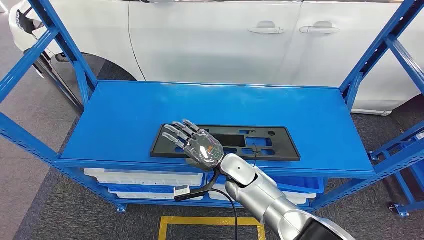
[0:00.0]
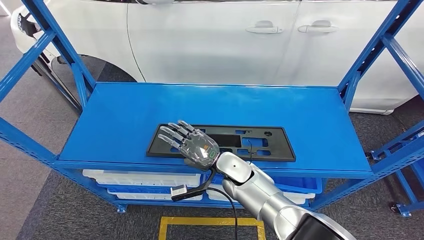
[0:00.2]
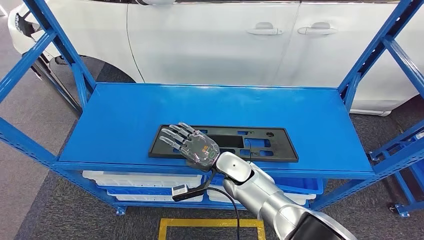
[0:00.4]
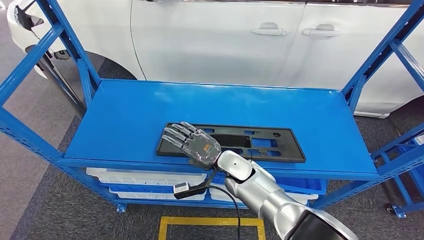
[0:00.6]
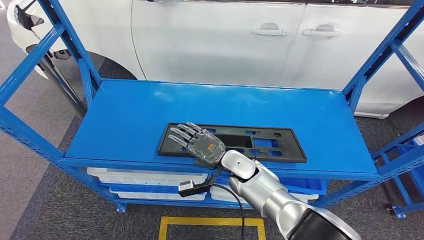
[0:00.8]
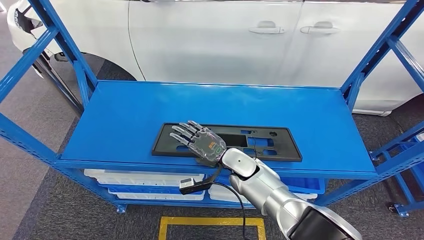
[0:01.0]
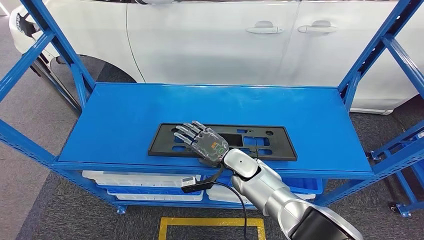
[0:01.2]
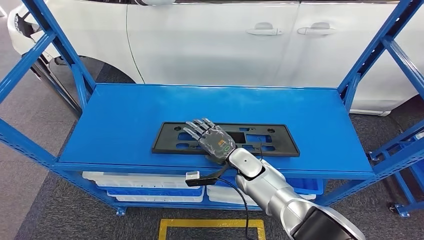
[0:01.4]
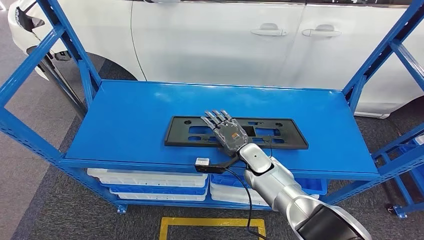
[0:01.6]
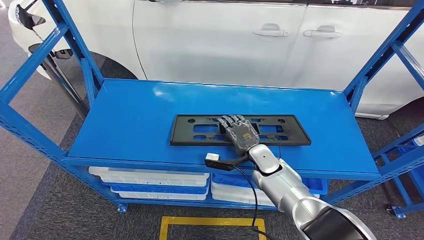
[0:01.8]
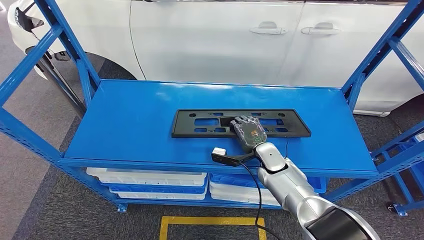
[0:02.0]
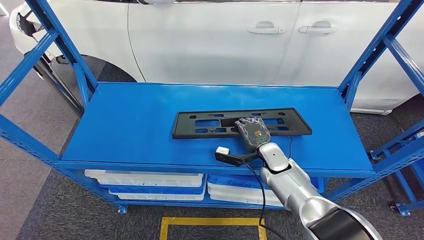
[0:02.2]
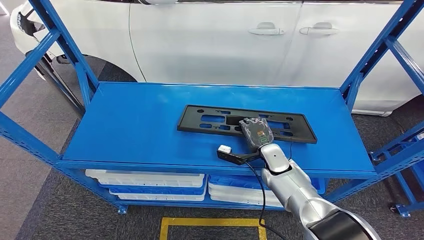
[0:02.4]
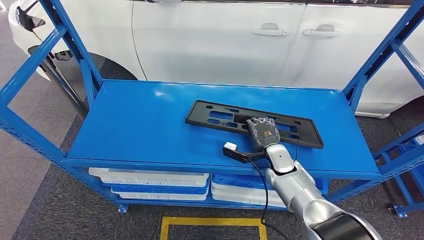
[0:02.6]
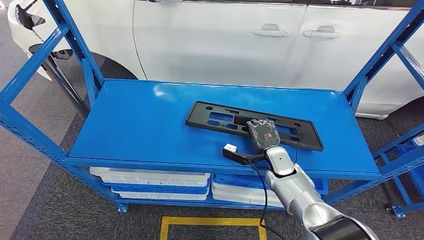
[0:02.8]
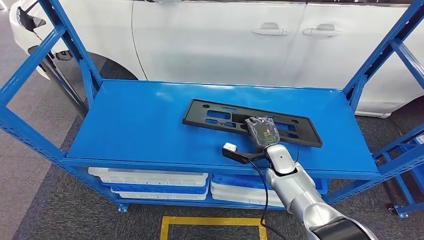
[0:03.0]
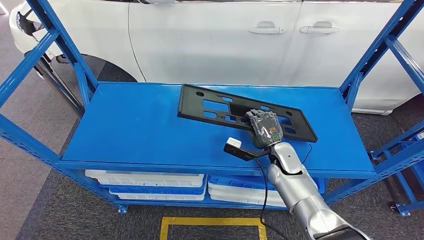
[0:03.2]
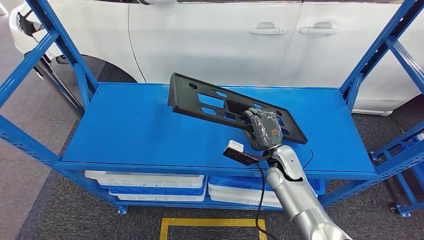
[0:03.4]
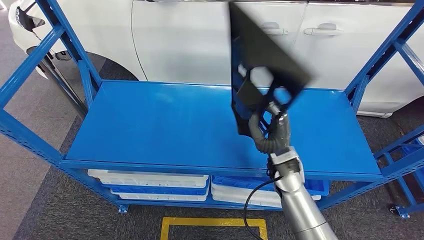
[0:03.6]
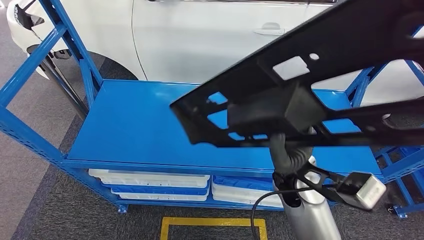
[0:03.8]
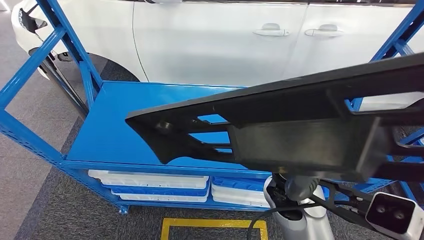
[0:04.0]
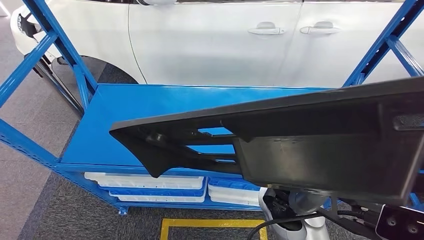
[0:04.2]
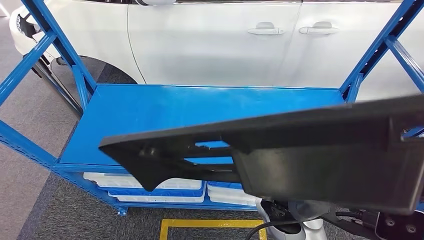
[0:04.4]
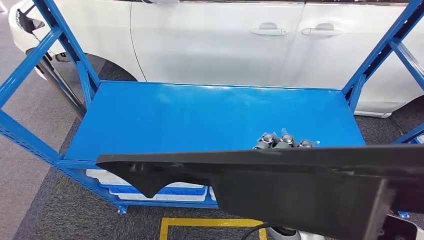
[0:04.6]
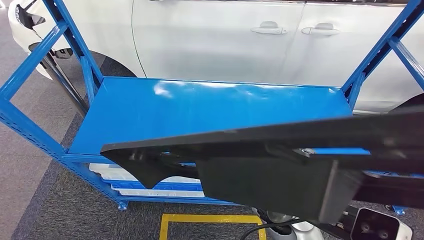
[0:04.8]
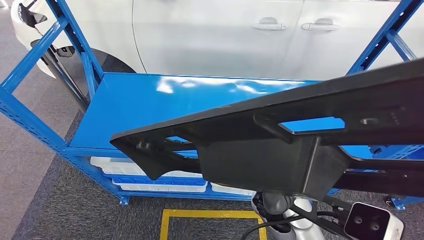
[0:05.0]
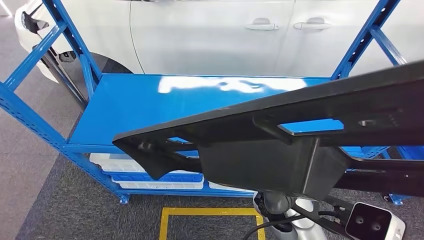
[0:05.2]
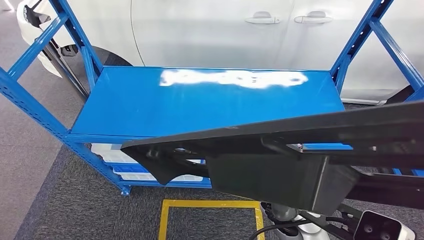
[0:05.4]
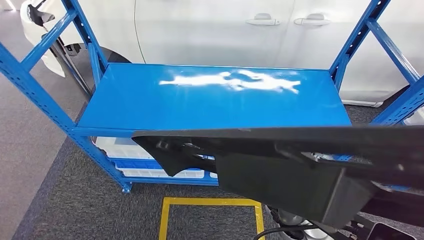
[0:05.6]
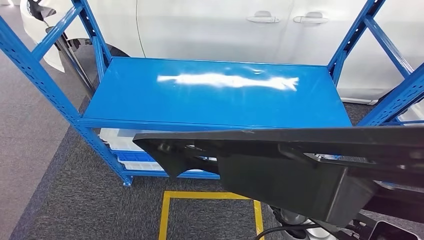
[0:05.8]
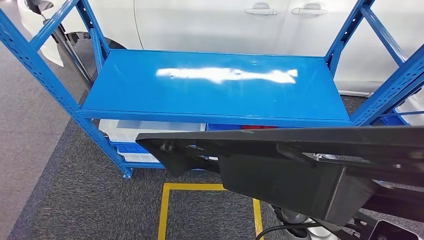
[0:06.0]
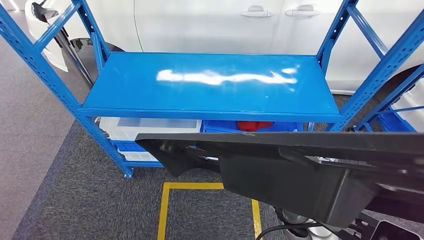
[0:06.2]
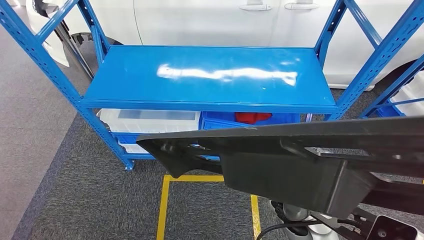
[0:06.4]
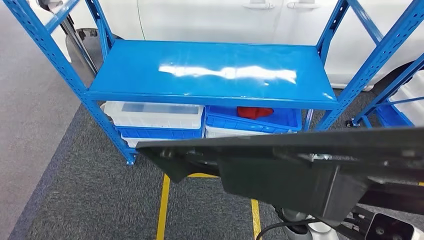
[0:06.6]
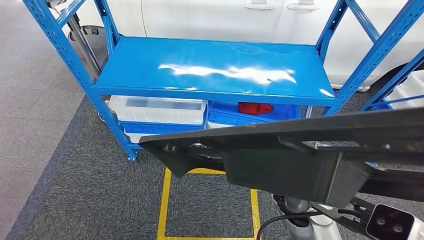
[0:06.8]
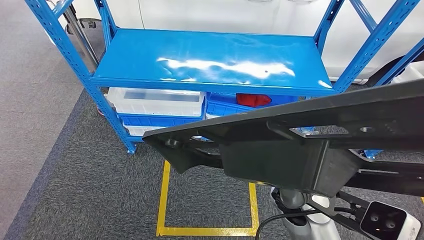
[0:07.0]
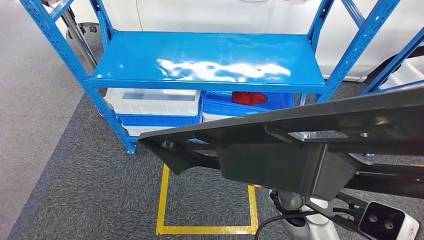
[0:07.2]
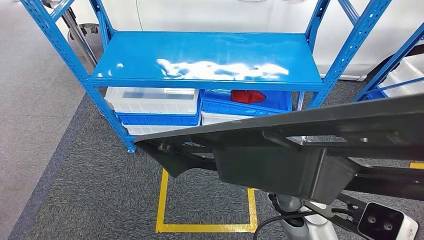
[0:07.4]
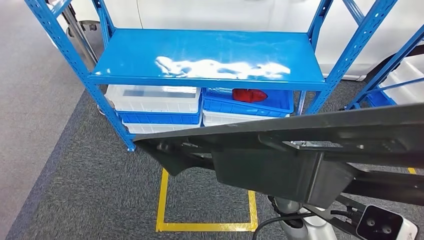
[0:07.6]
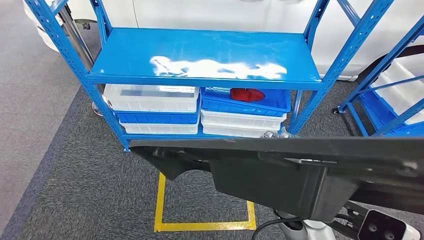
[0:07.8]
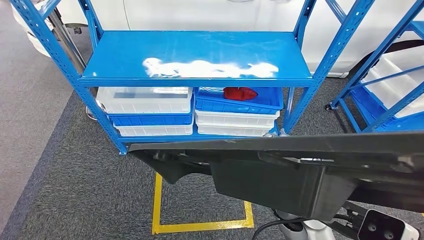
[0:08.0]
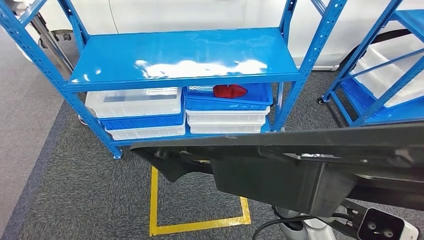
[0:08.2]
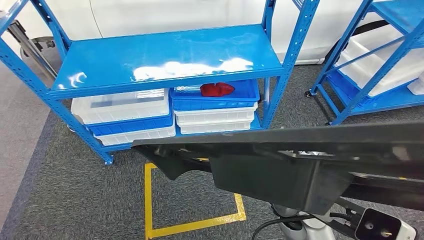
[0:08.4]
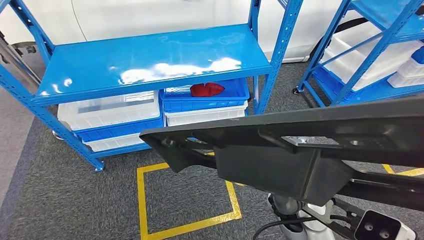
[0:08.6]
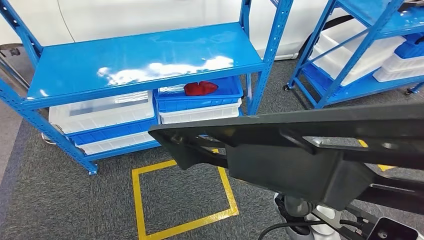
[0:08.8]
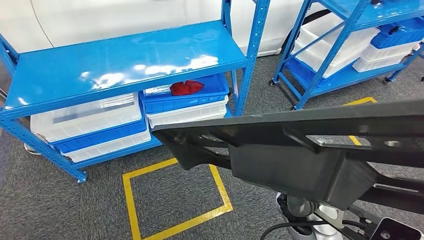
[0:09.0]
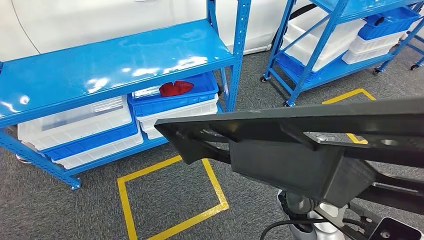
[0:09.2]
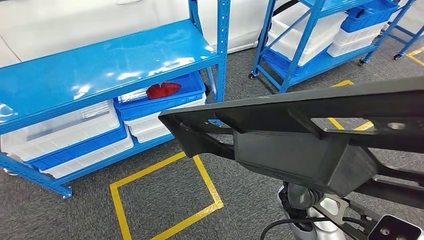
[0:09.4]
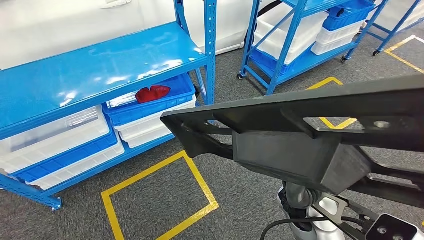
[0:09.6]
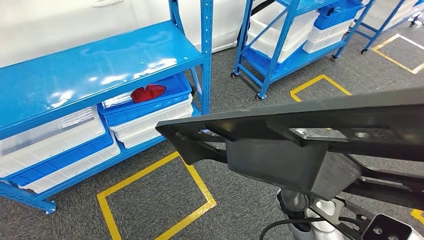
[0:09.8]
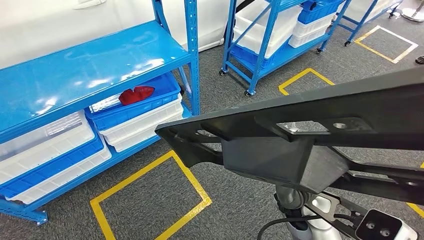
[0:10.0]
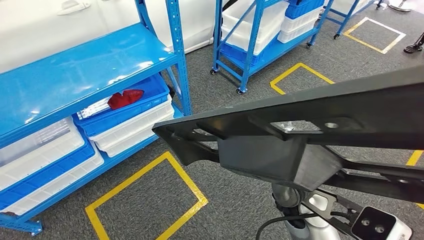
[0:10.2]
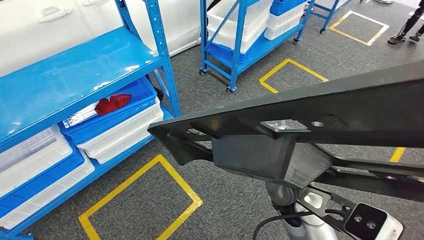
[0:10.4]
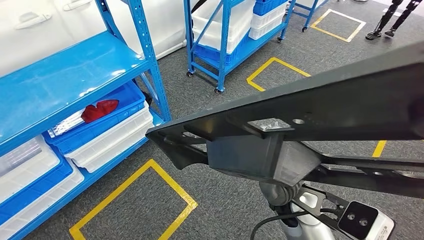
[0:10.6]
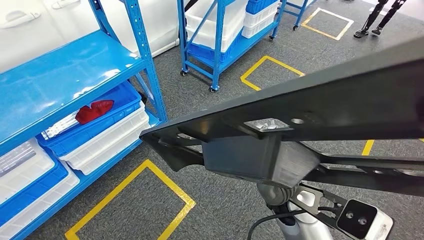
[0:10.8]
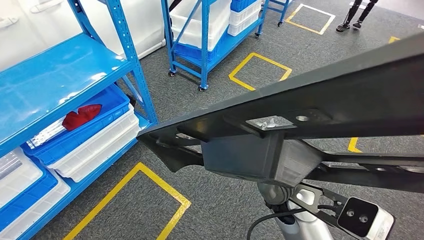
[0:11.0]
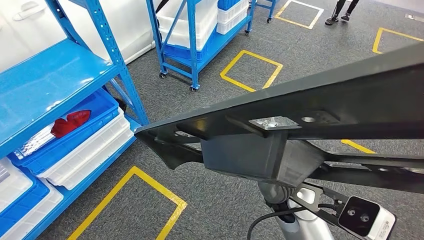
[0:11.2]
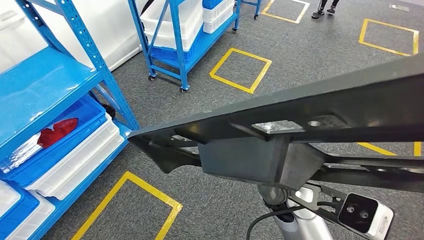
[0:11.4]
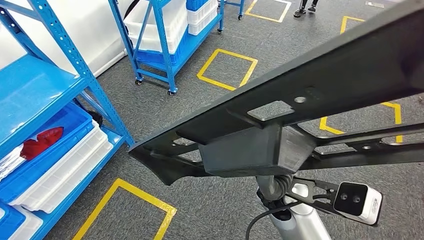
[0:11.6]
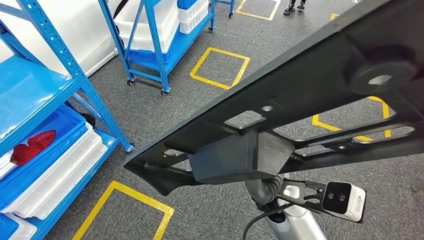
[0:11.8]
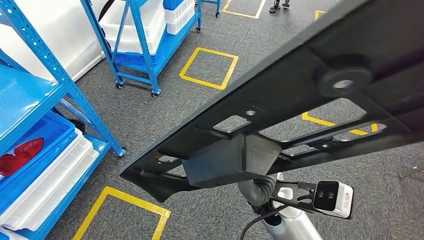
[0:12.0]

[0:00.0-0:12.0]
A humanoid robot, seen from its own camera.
Step, 0:00.0 to 0:04.2: Pick up the large material from the shelf.
0:01.6 to 0:03.0: The right hand shifts about 10 cm to the right.

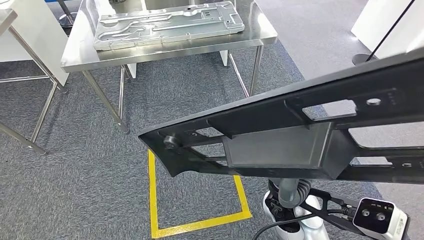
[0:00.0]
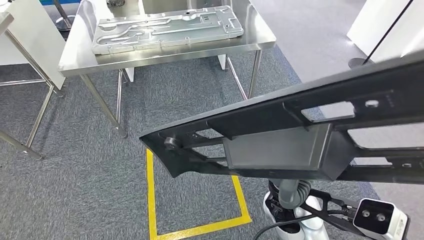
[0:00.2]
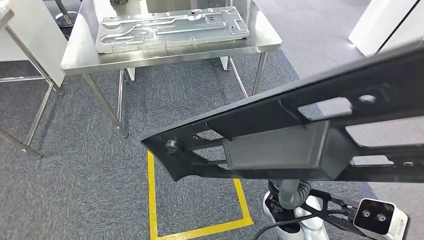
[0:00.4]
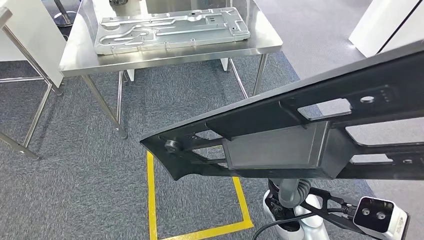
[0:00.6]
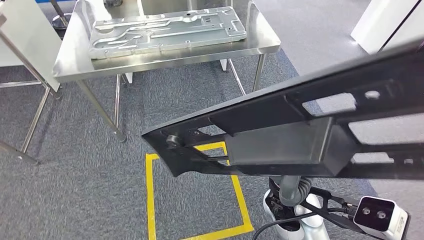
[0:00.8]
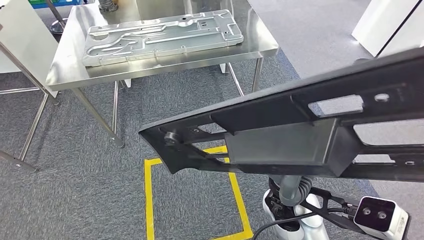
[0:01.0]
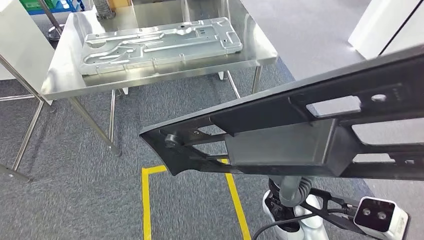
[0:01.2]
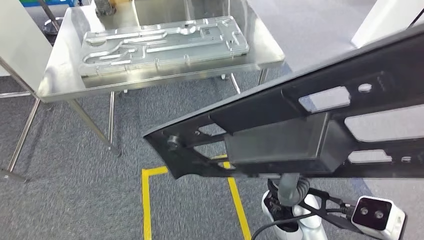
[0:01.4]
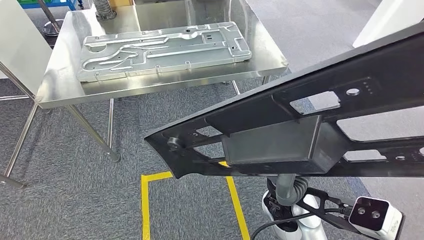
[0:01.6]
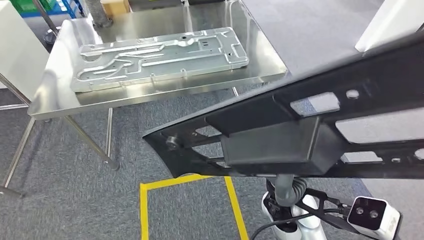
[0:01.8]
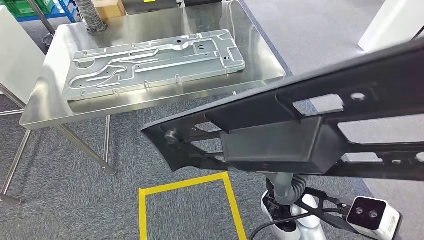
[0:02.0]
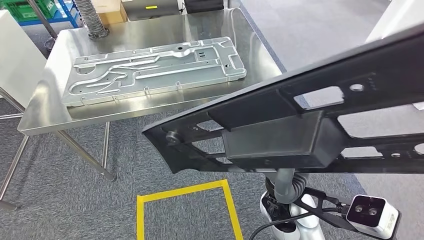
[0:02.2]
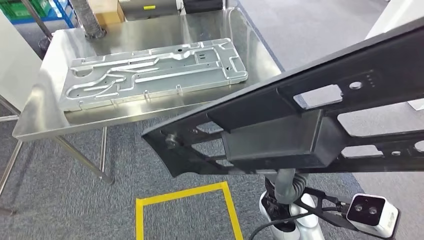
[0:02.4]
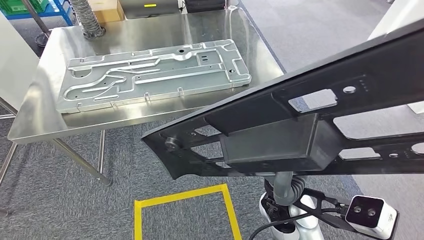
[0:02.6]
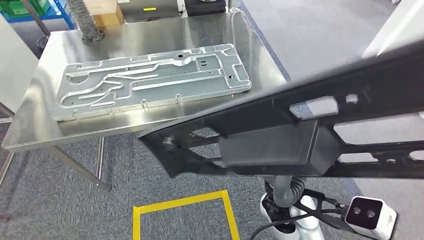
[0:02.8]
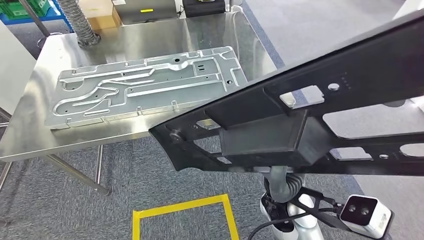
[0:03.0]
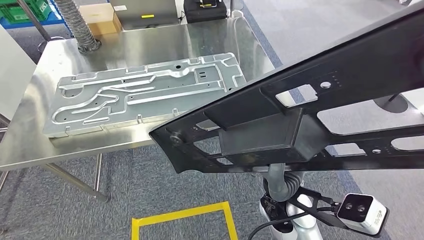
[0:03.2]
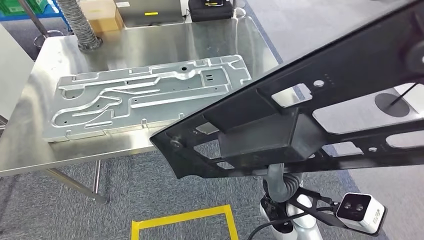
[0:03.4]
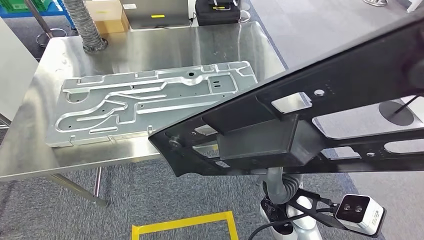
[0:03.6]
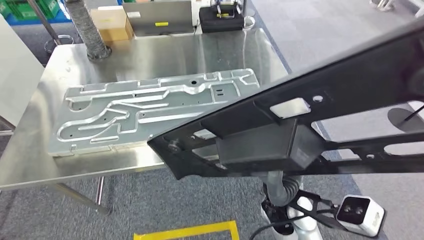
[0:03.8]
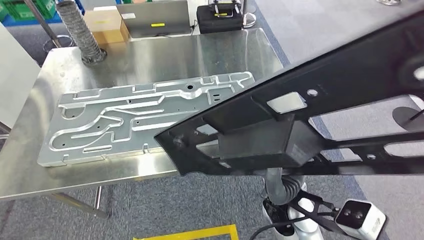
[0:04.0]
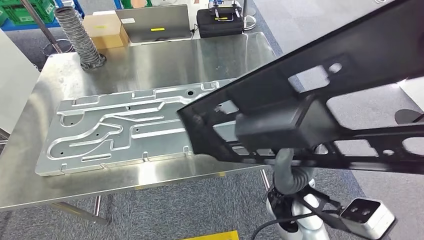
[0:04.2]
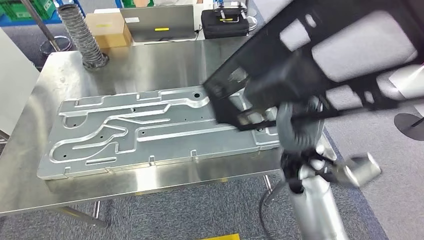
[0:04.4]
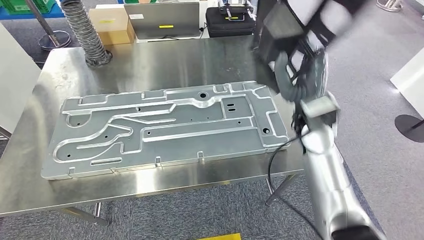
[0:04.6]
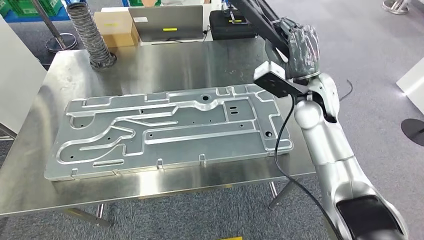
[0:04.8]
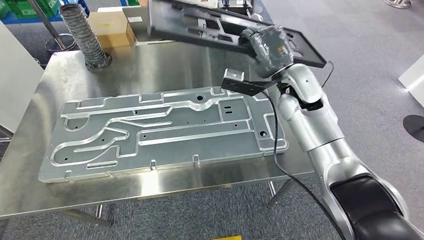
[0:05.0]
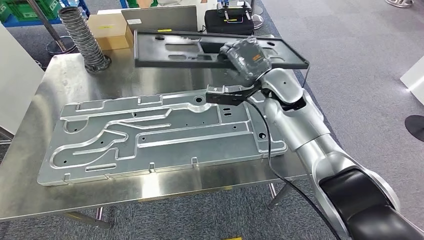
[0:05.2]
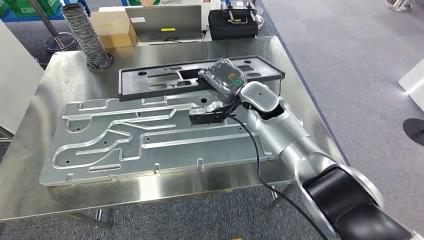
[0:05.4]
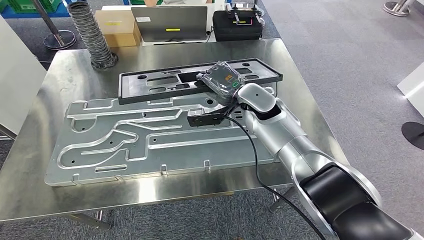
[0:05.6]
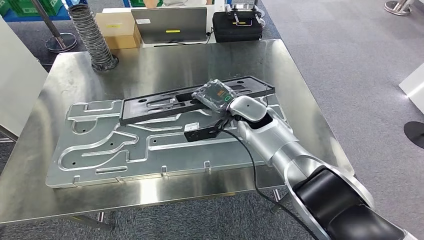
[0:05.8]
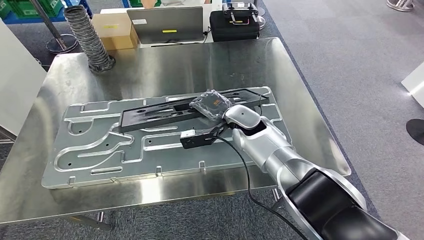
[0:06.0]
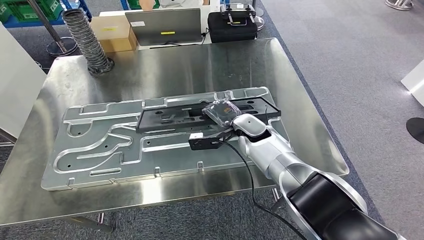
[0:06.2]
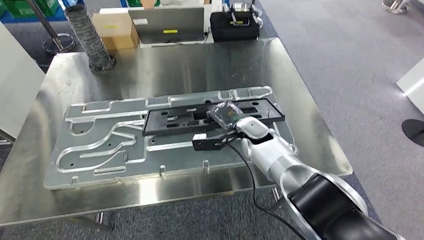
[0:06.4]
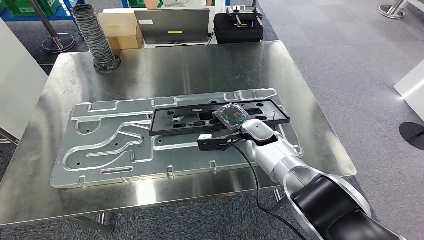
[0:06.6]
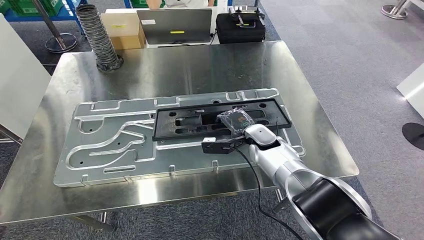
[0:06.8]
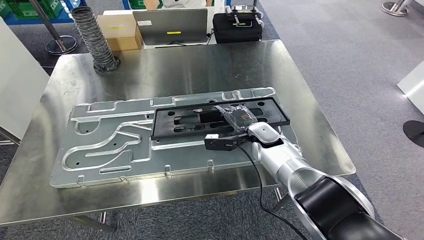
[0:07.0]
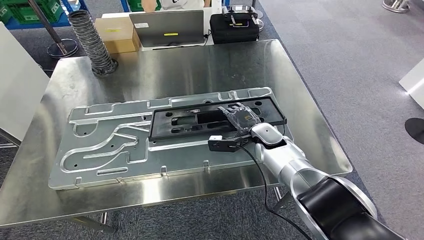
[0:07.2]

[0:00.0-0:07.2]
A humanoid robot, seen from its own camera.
Step, 0:00.0 to 0:04.2: Move the large material to the workbench.
